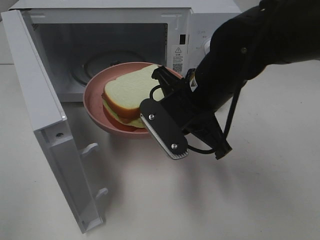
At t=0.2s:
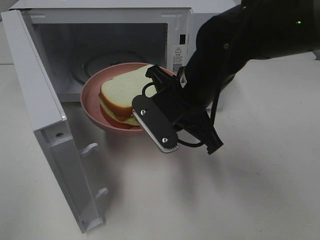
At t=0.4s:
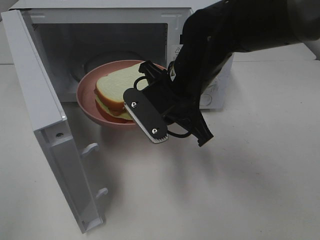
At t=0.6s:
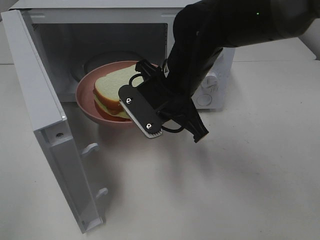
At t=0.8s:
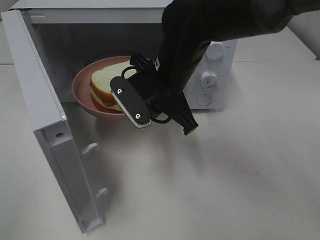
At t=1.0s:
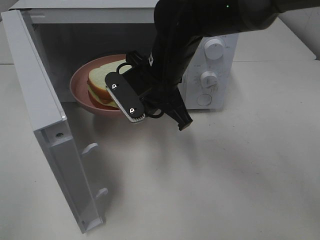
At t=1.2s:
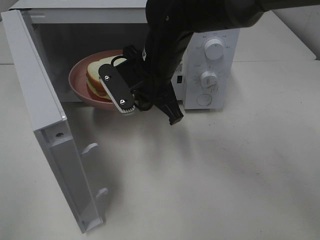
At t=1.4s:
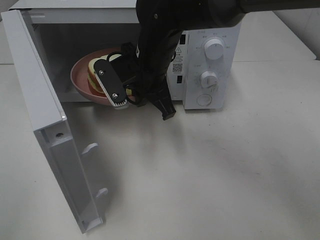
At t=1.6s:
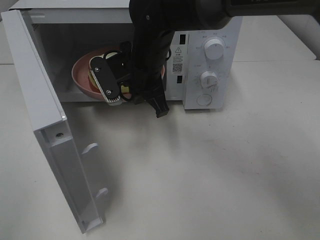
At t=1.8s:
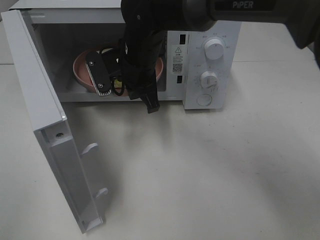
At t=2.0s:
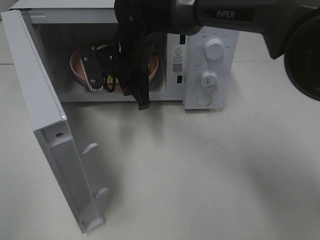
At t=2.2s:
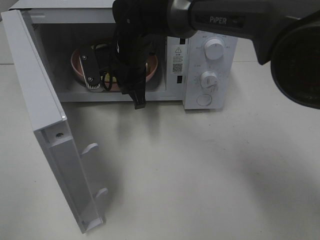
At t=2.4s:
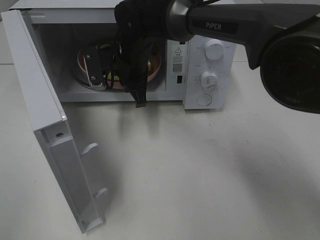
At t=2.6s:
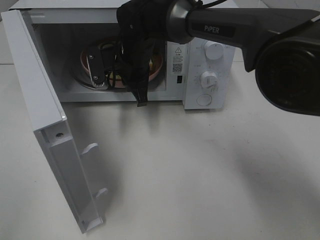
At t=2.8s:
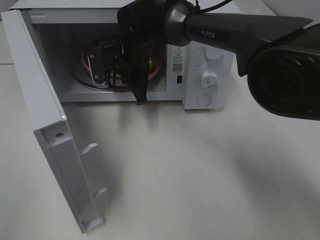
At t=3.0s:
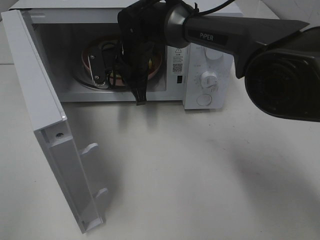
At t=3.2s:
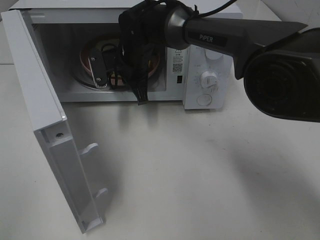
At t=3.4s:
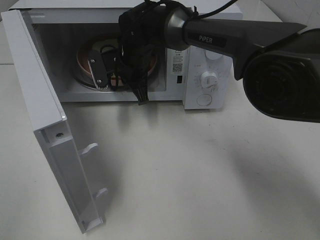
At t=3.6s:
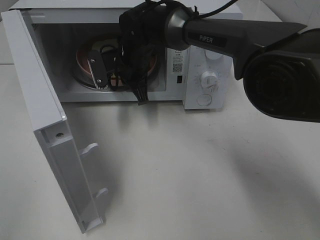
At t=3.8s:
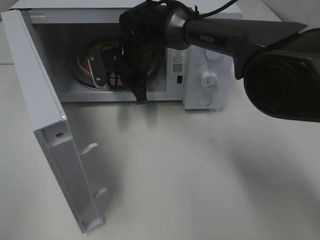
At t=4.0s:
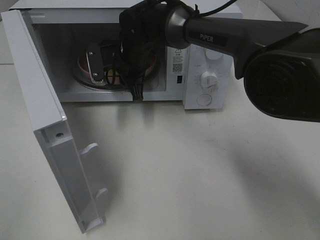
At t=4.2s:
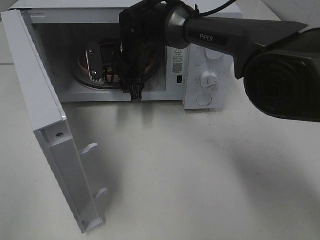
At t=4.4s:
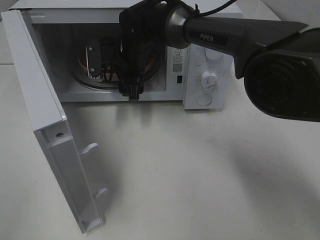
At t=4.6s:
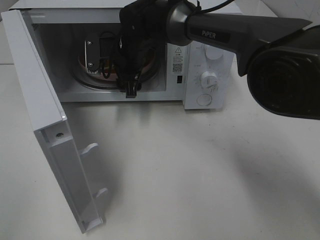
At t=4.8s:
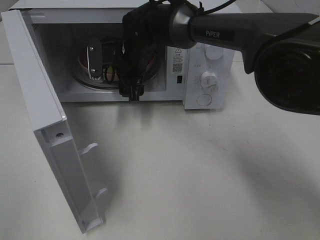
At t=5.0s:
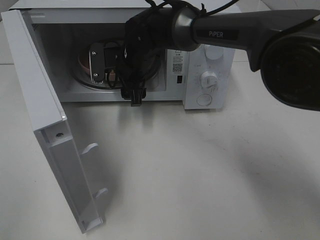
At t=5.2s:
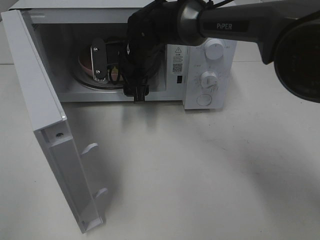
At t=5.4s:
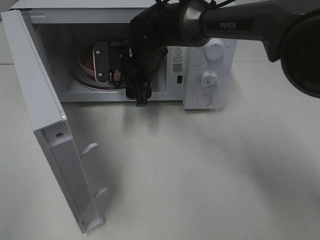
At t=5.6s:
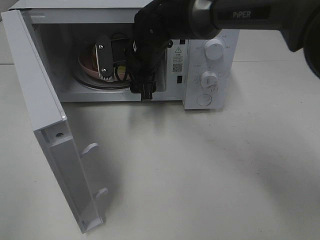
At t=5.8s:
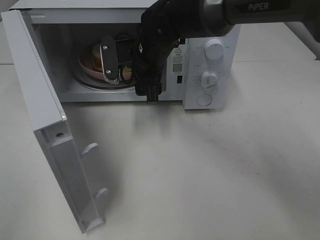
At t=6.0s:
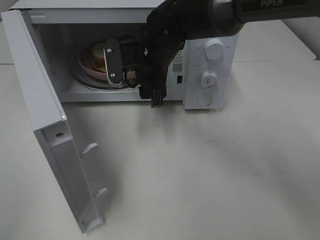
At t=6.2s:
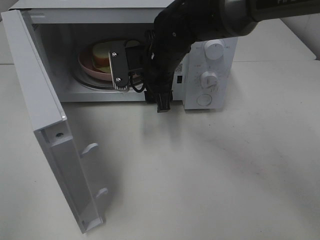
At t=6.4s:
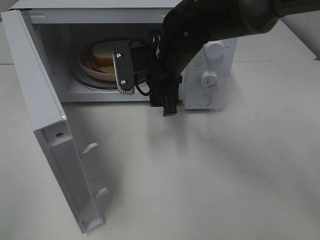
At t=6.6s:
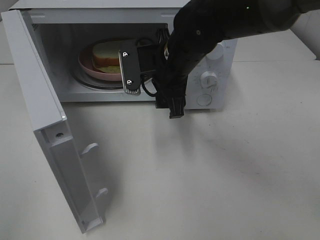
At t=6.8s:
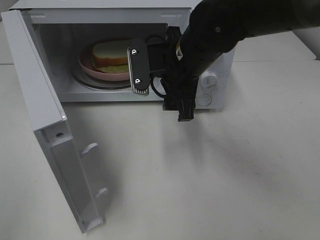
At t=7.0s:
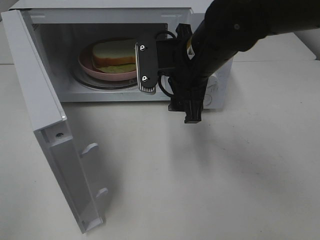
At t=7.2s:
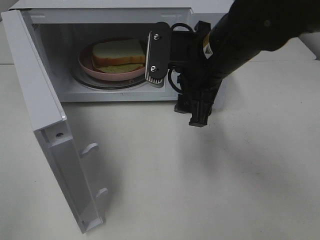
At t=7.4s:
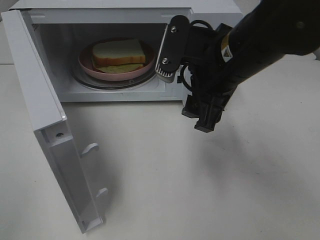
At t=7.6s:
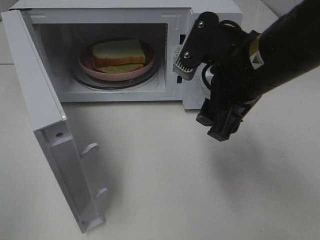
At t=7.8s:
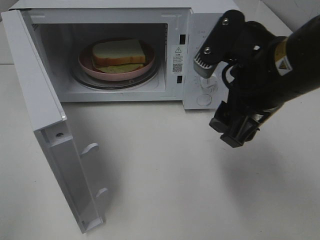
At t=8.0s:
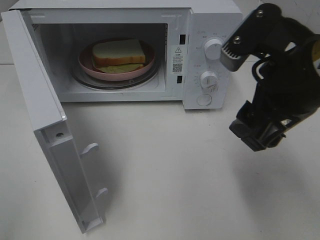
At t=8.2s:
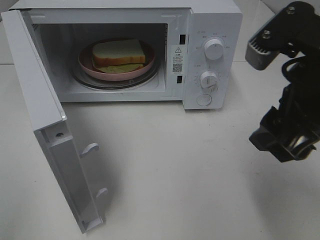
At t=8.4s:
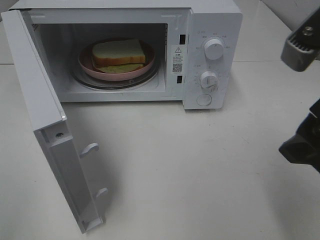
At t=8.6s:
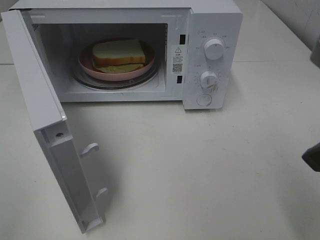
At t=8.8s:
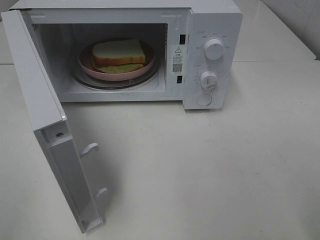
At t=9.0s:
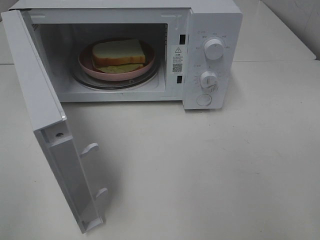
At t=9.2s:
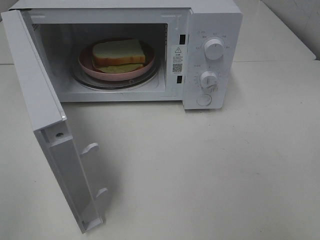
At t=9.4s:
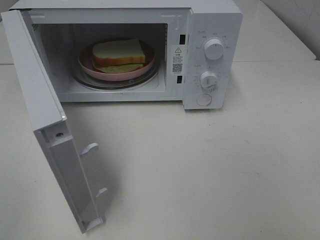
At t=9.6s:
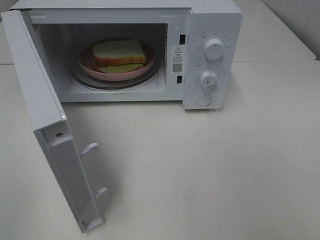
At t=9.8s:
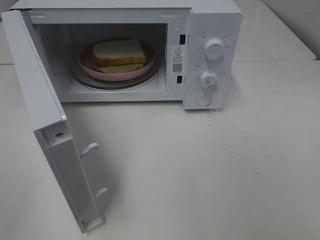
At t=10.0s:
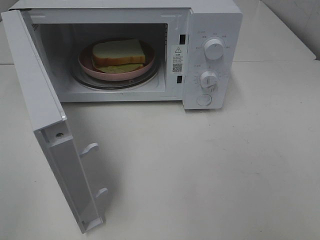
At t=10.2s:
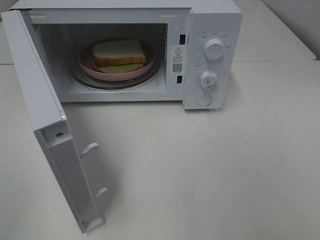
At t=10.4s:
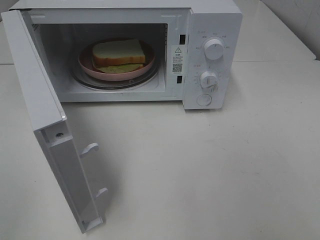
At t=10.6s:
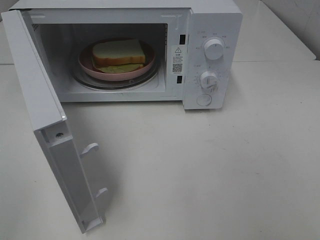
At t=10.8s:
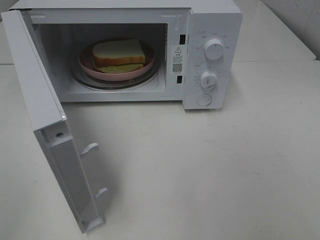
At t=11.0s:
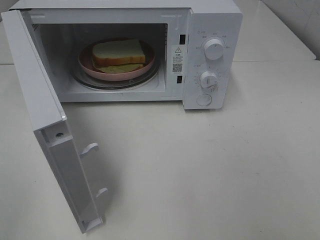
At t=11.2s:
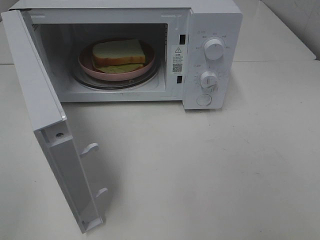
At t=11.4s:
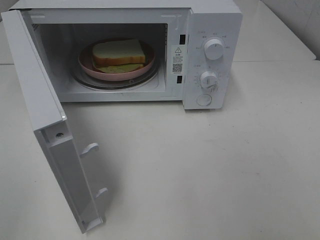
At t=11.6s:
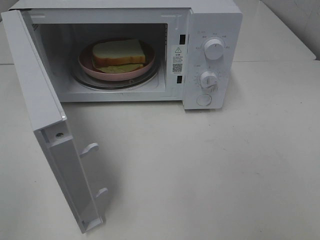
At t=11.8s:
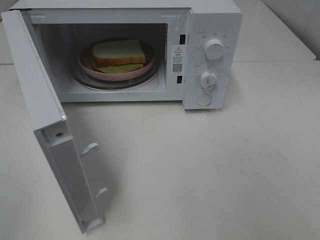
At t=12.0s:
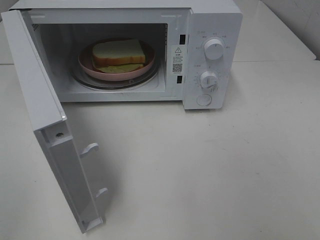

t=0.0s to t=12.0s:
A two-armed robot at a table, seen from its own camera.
Task of the whole recording: Heat Sandwich.
Step, t=0.0s to t=5.4s: Right hand: place the plate in the microwave.
t=0.0s to t=1.6s: The right gripper heads forward and to the left, covering about 15 cm.
t=1.6s to t=3.0s: The right gripper goes some 5 cm forward.
t=3.0s to t=4.4s: The right gripper opens.
t=4.4s to t=6.0s: The right gripper heads backward, covering about 5 cm.
t=6.0s to t=7.6s: The right gripper goes some 20 cm backward, to the right and upward.
t=7.6s to t=9.0s: The right gripper shifts about 20 cm backward and to the right.
t=10.4s to t=12.0s: Both grippers stay about where they are.

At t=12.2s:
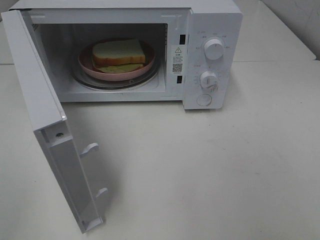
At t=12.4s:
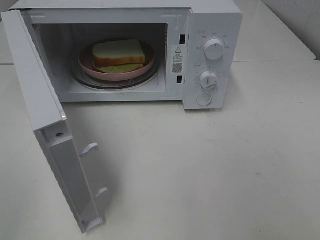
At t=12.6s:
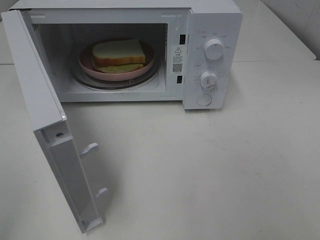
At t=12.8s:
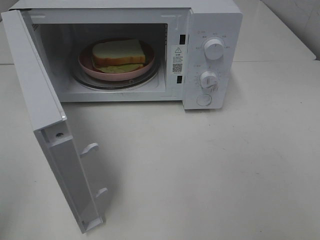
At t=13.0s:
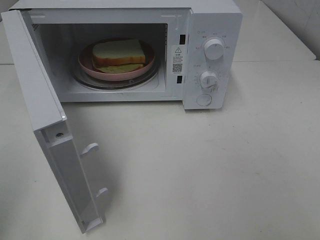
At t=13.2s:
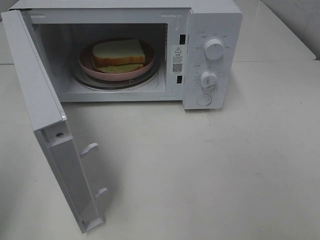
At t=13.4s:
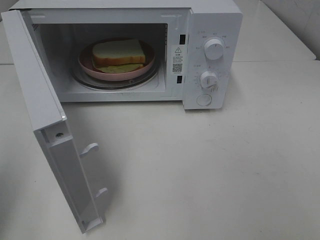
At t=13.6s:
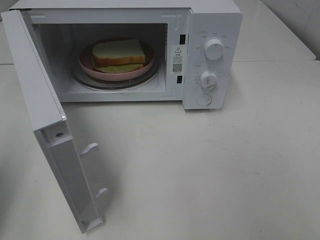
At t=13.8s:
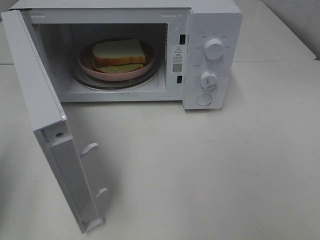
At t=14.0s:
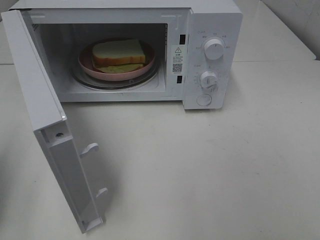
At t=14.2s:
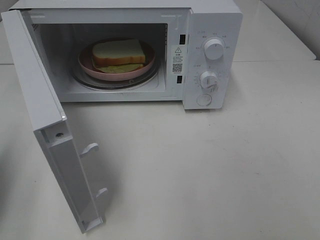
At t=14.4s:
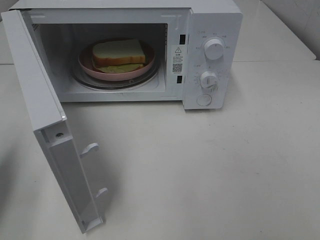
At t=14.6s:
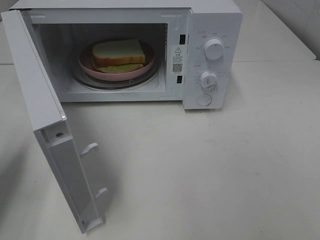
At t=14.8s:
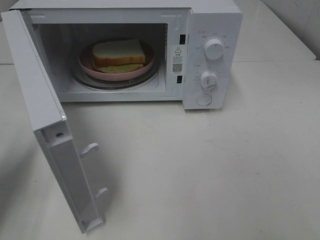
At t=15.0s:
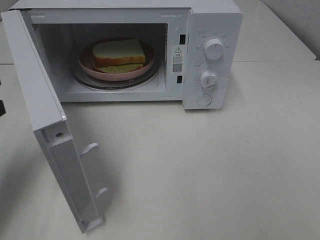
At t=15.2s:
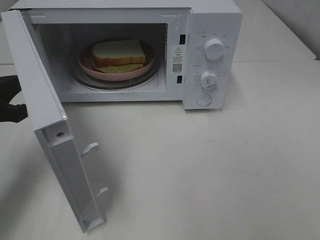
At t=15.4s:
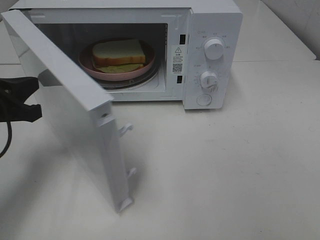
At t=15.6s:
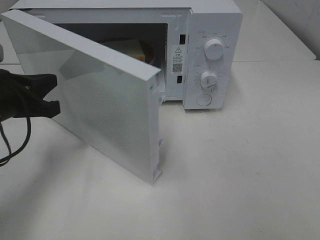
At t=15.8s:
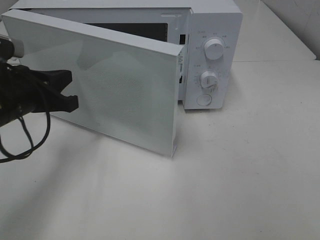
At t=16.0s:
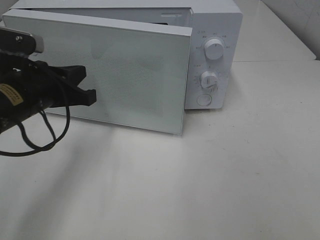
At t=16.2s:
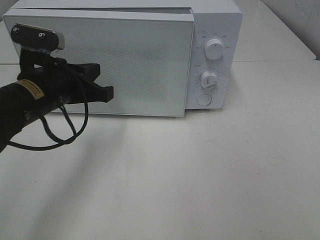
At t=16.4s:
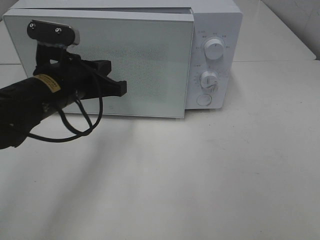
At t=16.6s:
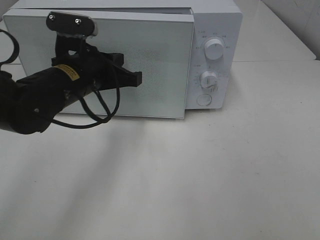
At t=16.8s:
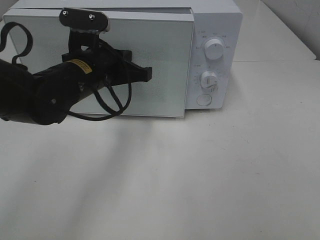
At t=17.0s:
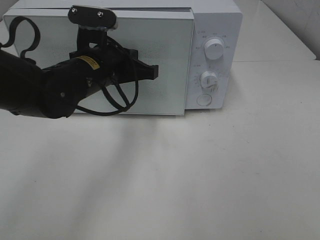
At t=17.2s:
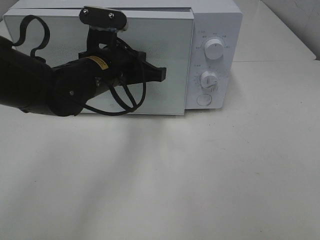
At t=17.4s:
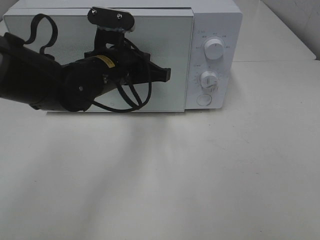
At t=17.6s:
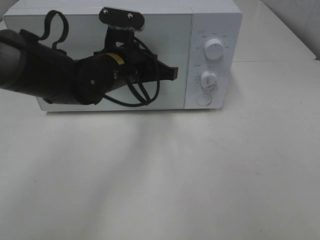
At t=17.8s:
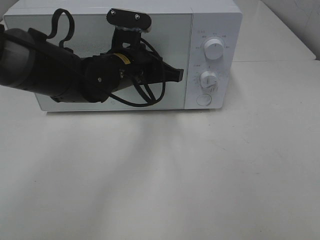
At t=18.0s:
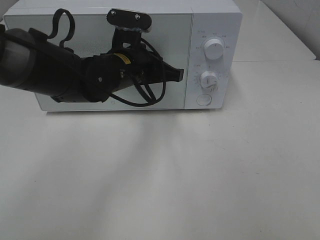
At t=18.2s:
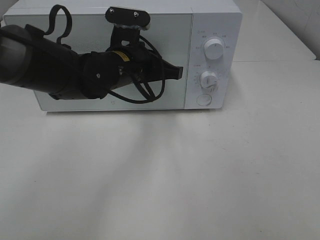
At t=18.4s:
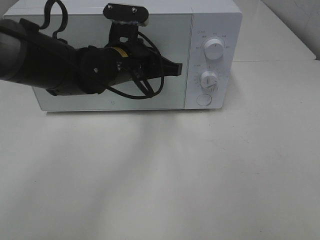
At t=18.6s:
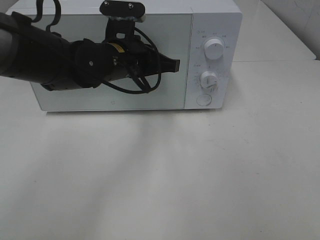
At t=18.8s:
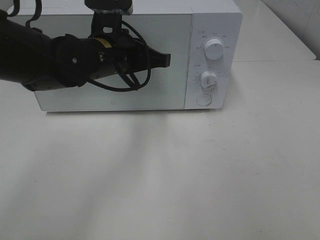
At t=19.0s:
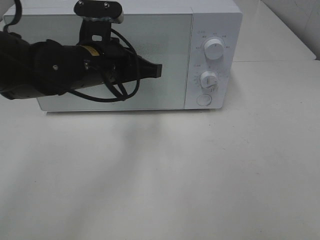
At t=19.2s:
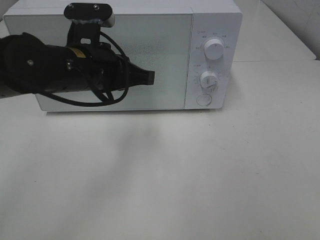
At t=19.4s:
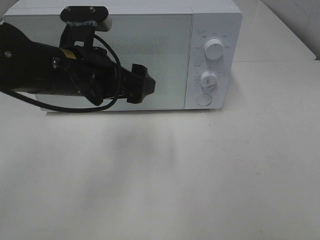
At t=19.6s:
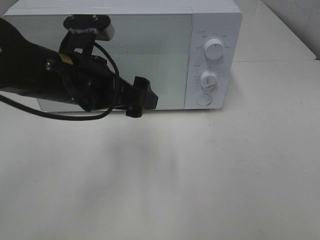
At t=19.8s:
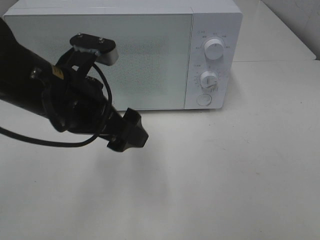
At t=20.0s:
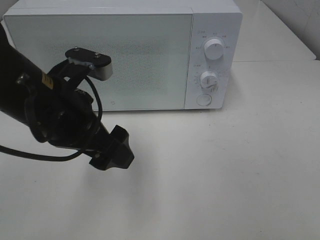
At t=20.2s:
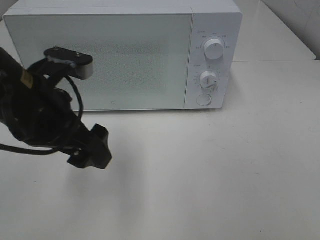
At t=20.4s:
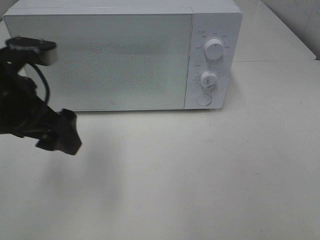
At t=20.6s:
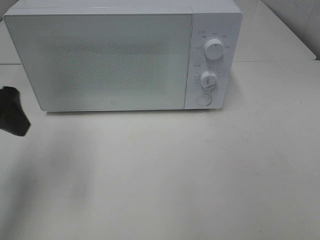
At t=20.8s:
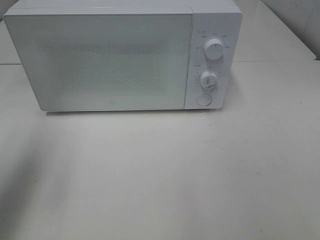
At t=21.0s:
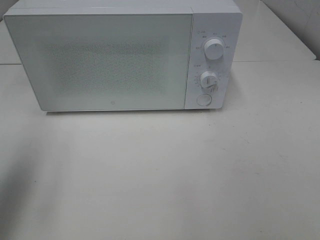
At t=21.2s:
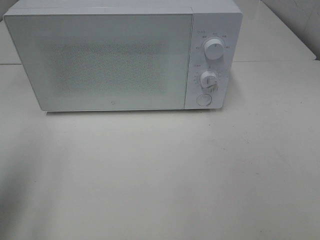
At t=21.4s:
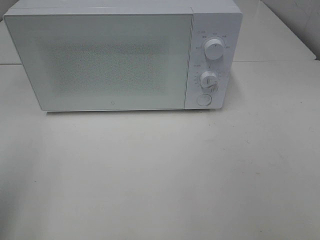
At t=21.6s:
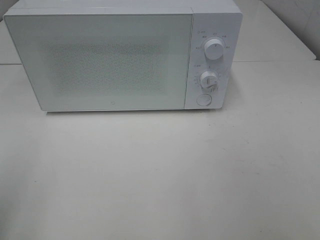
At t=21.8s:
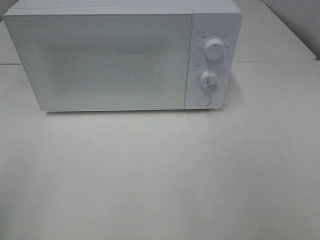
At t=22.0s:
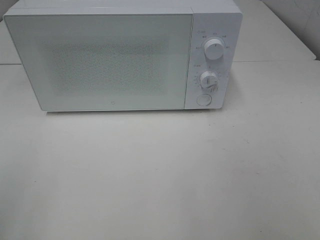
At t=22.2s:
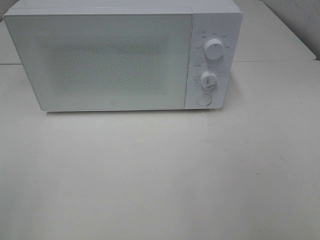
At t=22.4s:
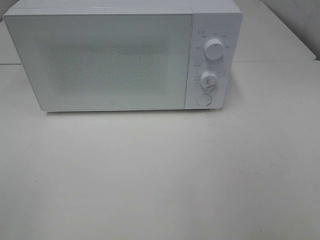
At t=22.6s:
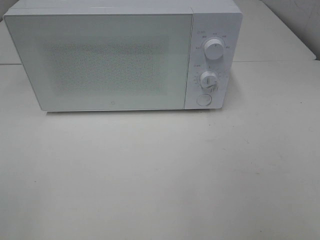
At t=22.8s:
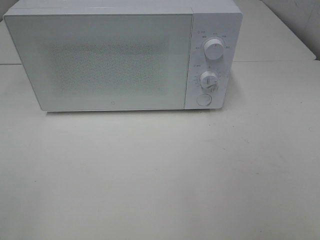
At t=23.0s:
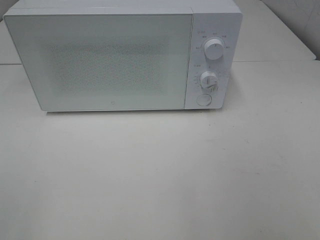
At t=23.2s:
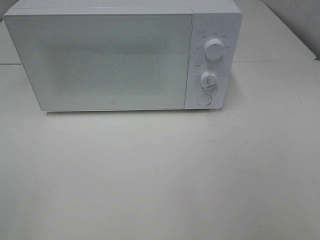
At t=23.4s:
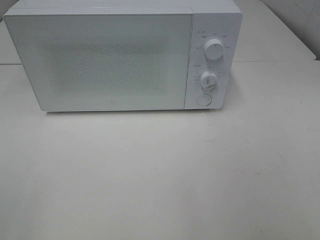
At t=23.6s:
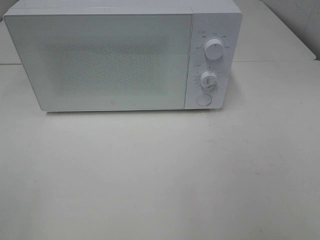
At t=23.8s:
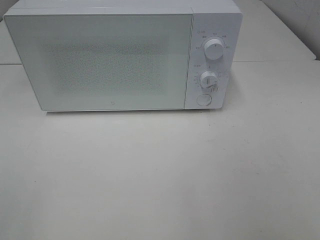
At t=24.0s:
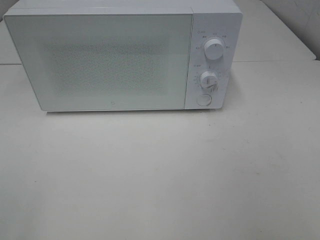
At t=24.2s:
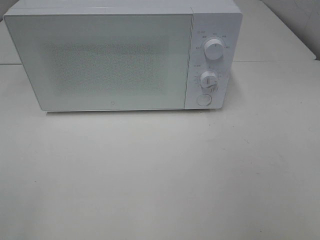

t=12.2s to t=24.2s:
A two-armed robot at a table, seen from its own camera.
Task of the whole recording: Heat Sandwich.
Step, t=12.2s to t=18.8s: Left hand: close the microwave door.
t=12.2s to t=13.8s: The left gripper goes some 15 cm forward, and closes its fingers.
t=13.8s to t=15.2s: The left gripper travels forward, downward and to the right by approximately 15 cm.
t=15.2s to t=16.6s: The left gripper moves to the right and forward, about 15 cm.
t=16.6s to t=18.2s: The left gripper travels to the right by about 5 cm.
t=18.2s to t=19.8s: The left gripper heads backward and to the left, covering roughly 15 cm, and opens.
t=19.8s to t=21.2s: The left gripper is displaced to the left and backward by approximately 20 cm.
t=21.2s to t=22.6s: The left gripper travels backward by some 15 cm.
